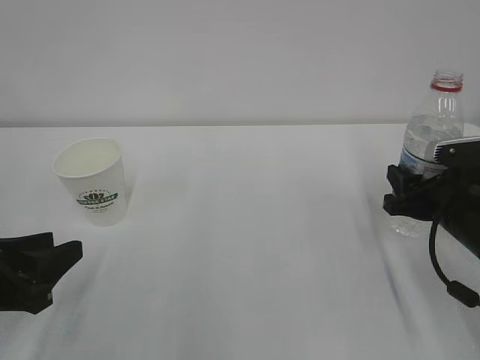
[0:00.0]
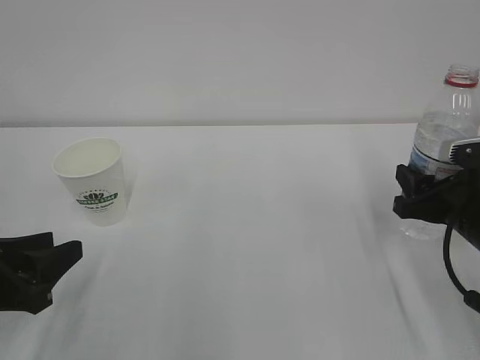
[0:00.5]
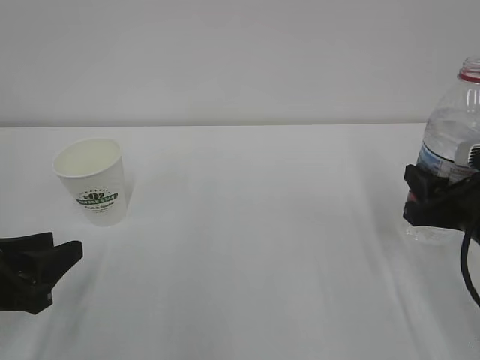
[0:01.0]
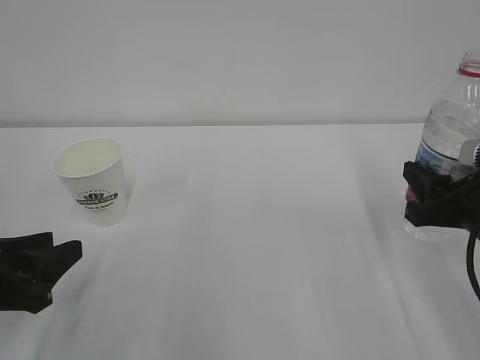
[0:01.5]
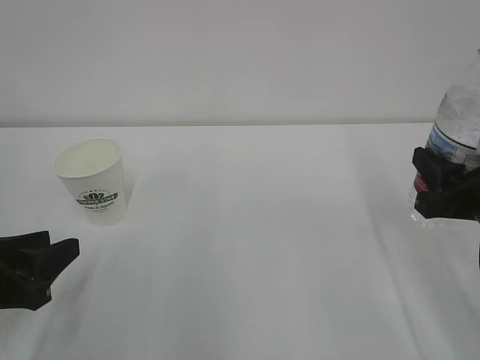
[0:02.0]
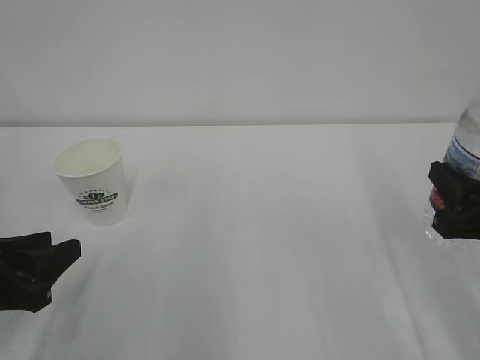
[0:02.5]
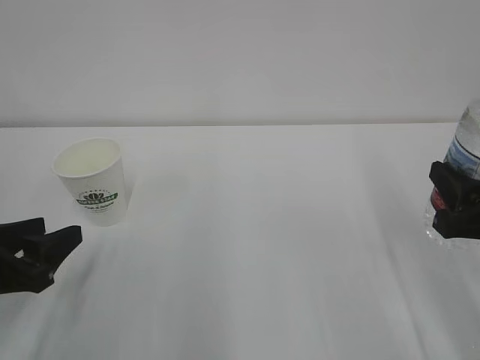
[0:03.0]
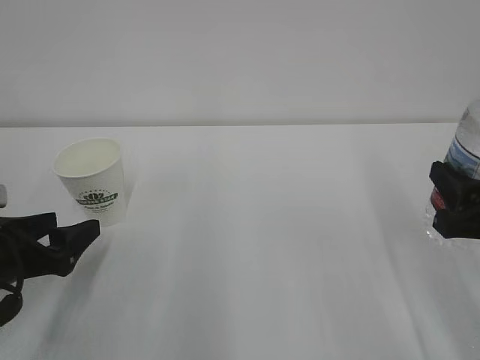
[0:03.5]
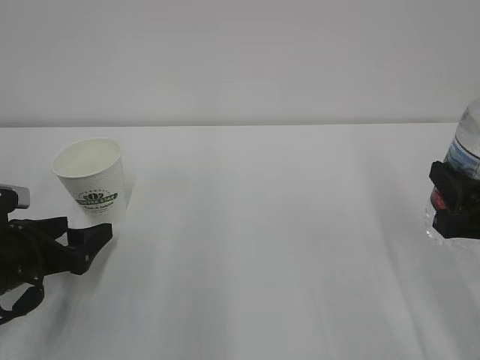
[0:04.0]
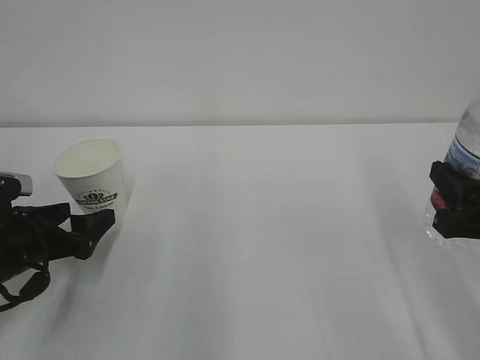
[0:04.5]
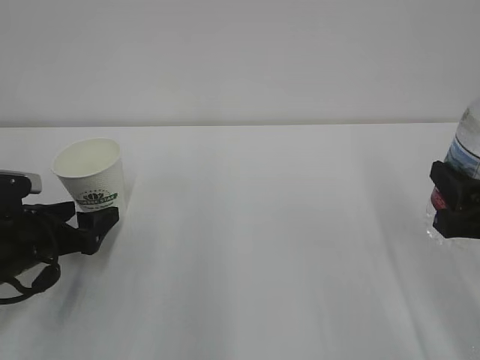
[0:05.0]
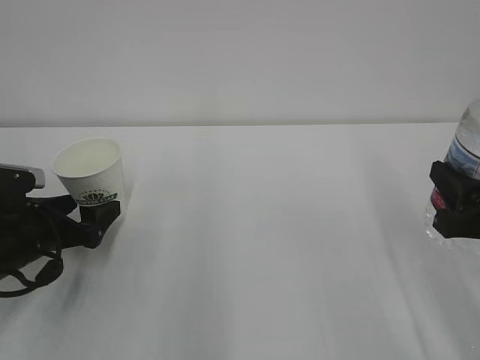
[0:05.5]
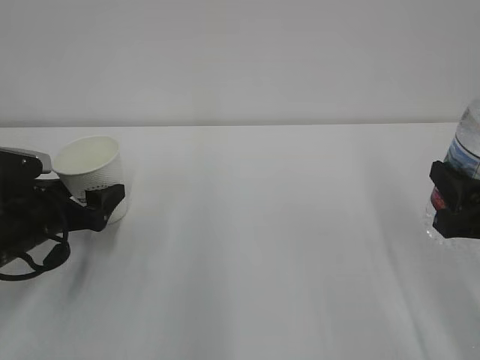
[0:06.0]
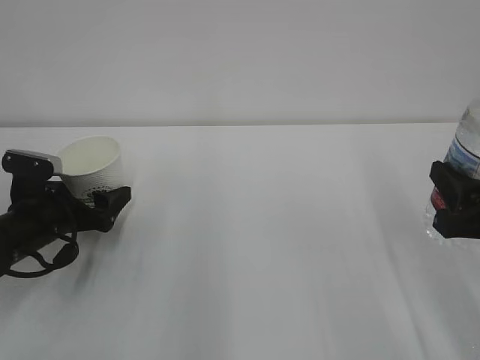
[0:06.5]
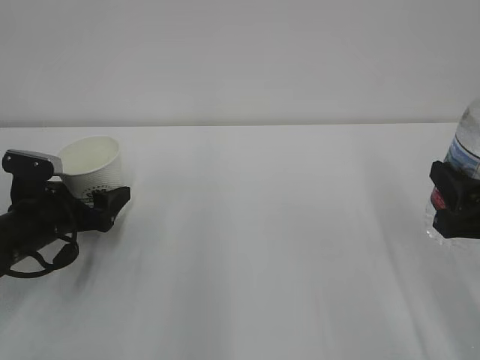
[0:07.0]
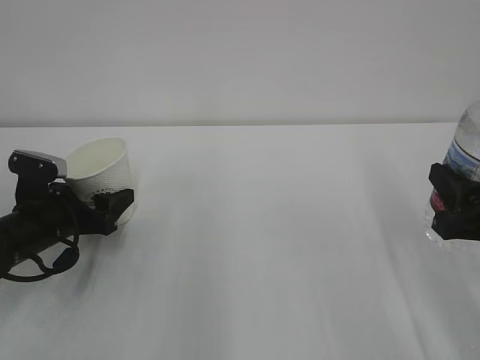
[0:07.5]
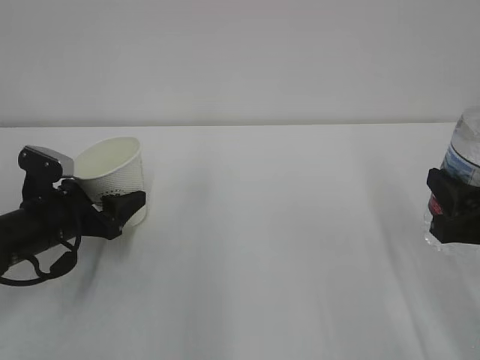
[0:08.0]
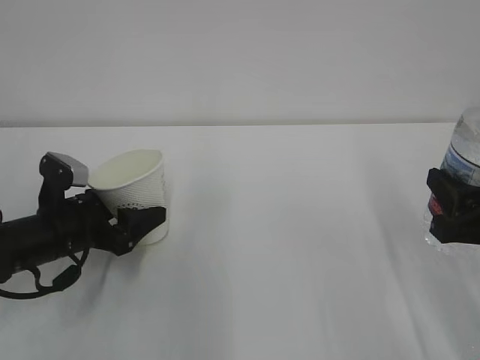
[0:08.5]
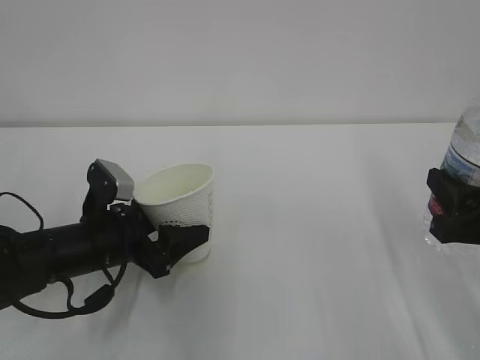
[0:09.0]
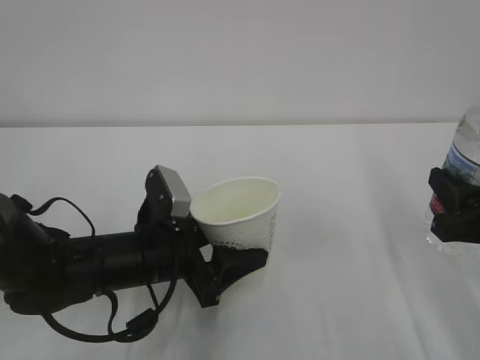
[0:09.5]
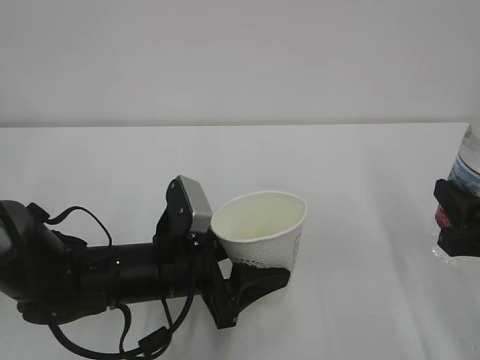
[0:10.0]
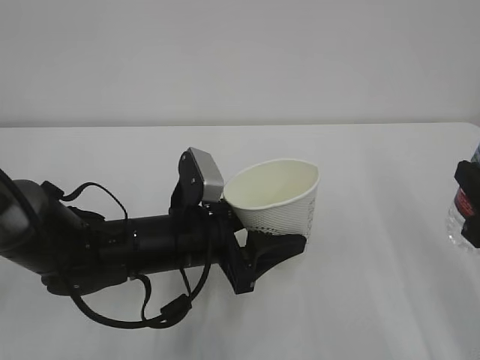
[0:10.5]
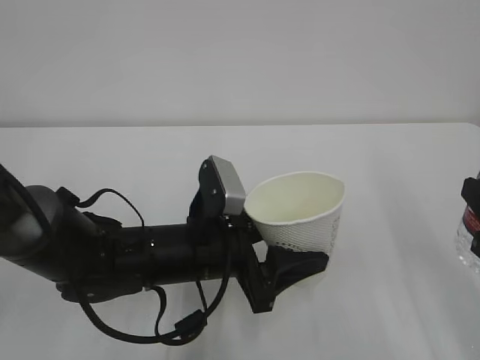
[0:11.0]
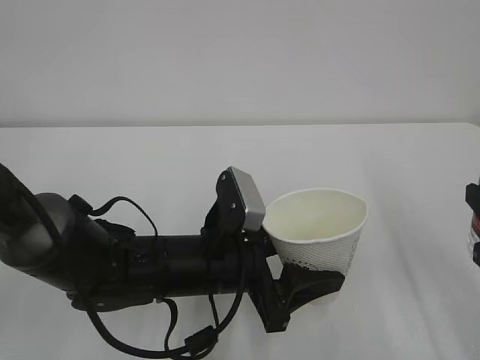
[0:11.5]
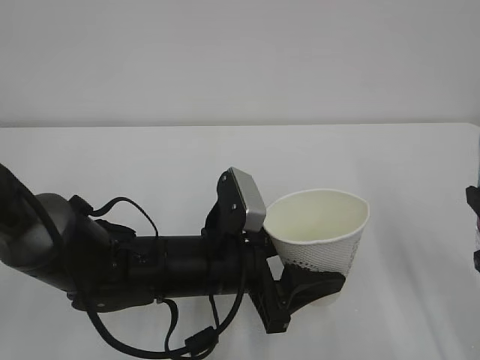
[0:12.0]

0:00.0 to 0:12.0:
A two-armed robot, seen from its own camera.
0:00.0 to 0:02.0: The right gripper moves upward and backward, roughly 10 cm.
0:02.0 to 0:04.0: The left gripper shifts about 5 cm forward, and opens its fingers.
0:04.0 to 0:06.0: The left gripper is displaced forward by some 5 cm.
0:06.0 to 0:08.0: The left gripper closes up.
0:08.0 to 0:10.0: The left gripper goes approximately 15 cm to the right and backward.
0:10.0 to 0:12.0: The left gripper moves to the right, roughly 5 cm.

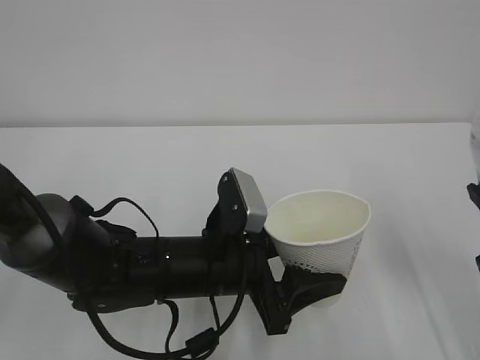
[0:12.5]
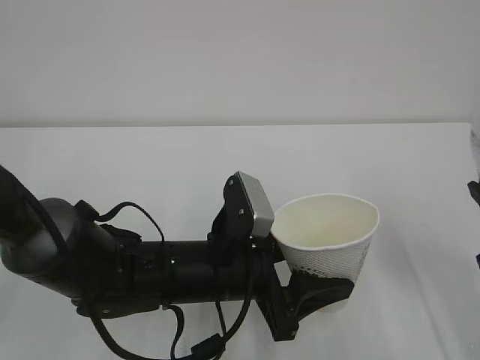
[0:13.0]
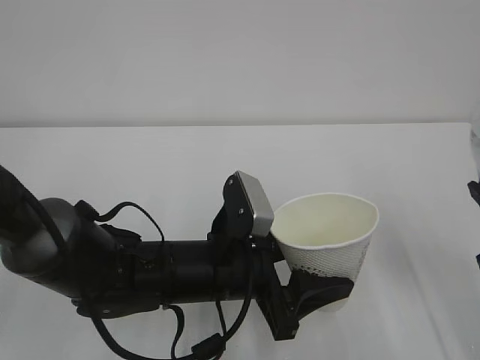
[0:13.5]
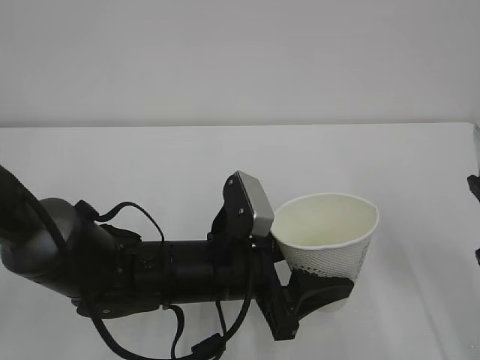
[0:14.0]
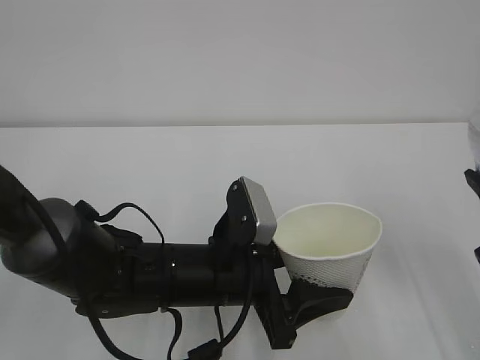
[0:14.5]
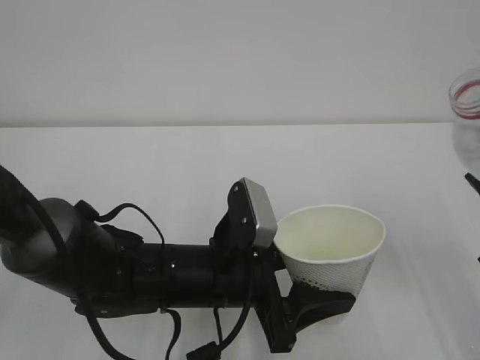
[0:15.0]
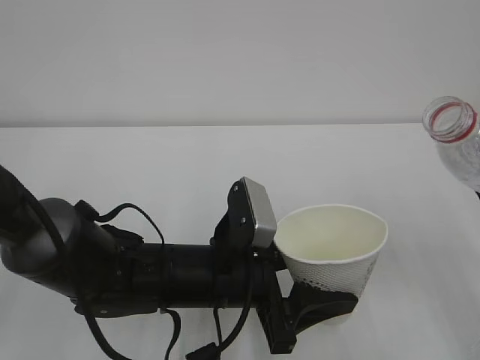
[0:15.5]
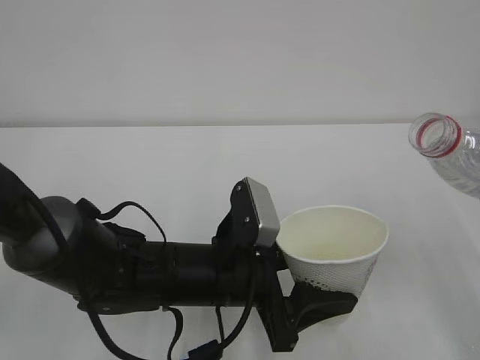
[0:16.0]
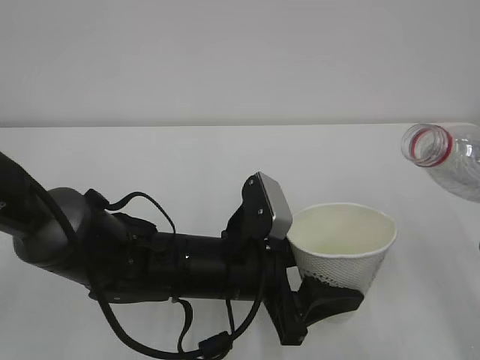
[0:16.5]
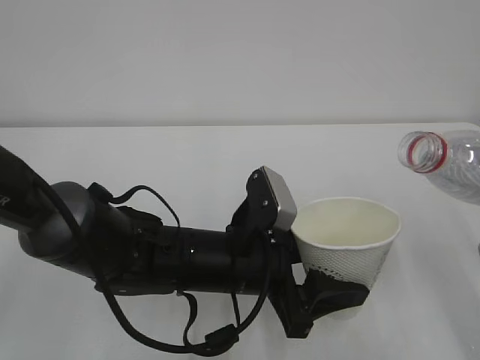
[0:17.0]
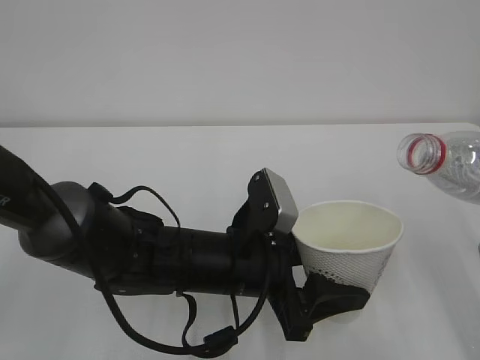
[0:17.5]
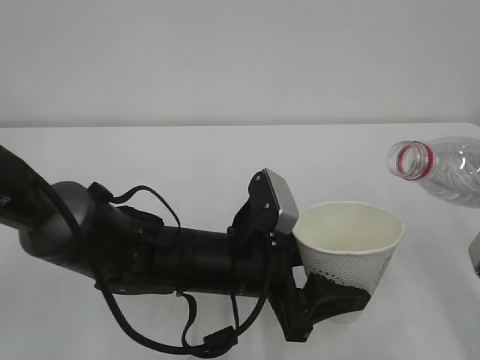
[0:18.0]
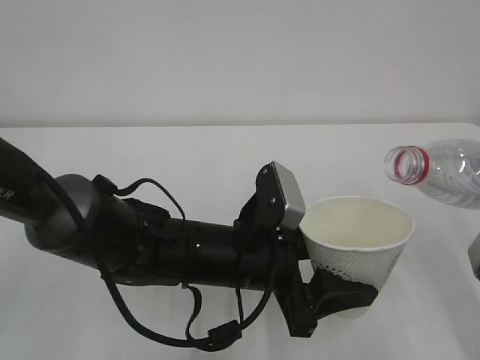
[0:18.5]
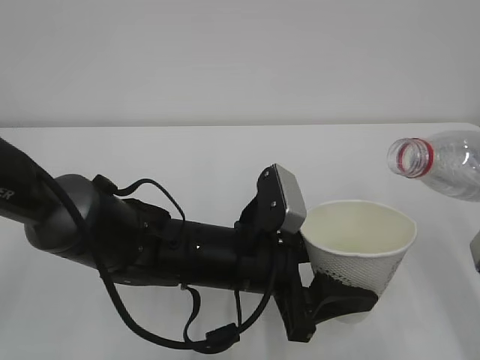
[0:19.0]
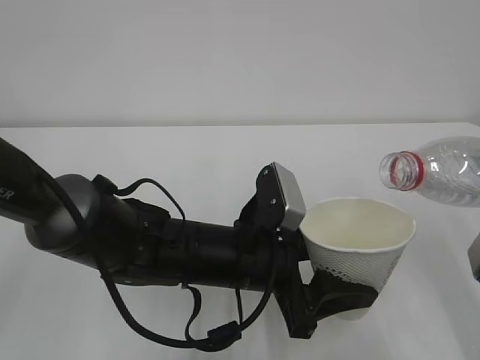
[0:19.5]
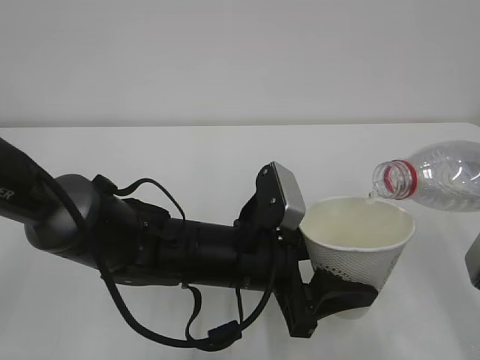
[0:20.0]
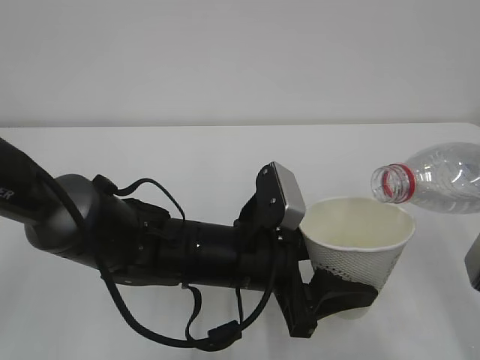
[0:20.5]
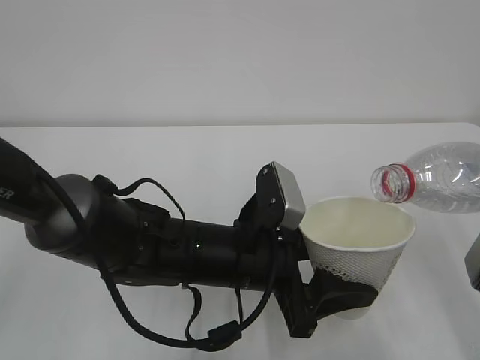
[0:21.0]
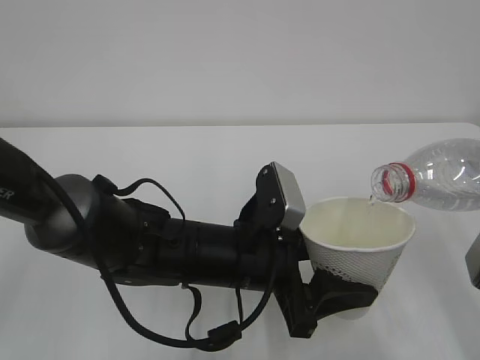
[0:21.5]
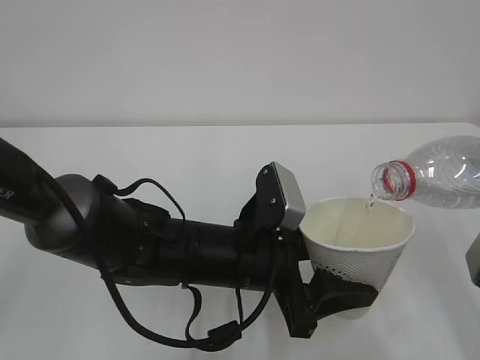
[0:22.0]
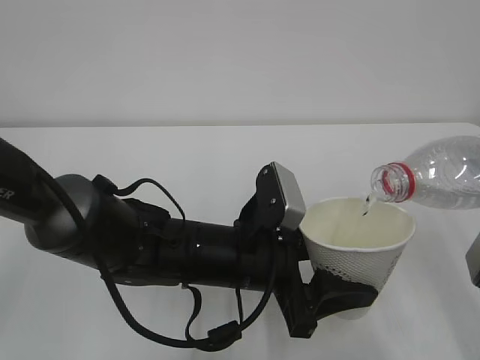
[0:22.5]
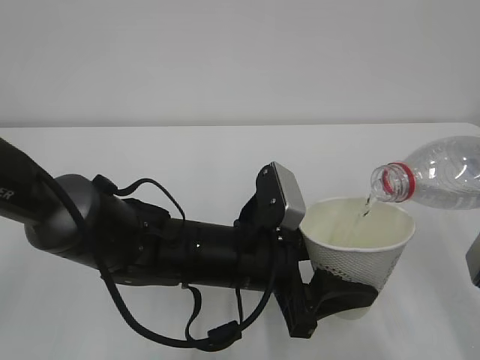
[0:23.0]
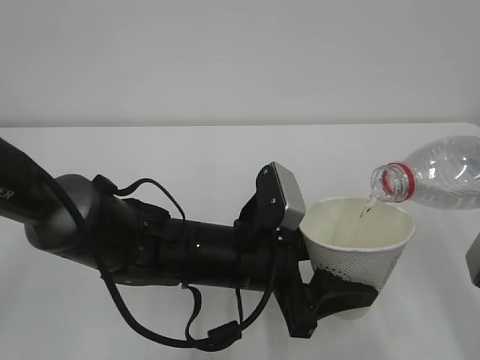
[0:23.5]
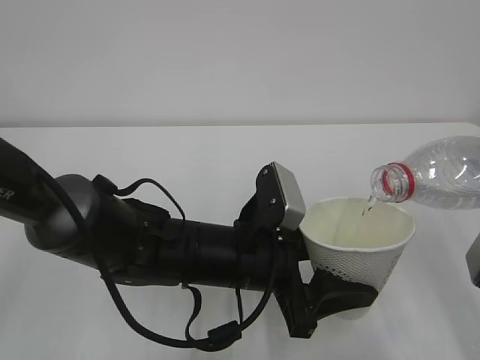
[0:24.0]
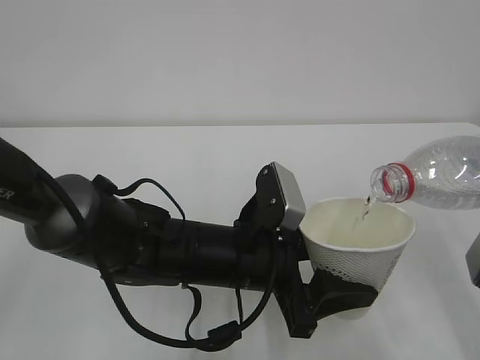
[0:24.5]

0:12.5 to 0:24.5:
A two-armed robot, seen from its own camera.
0:12.5 to 0:14.5: The grippers stay close to where they were, moving slightly.
0:16.5 to 0:20.5: The grippers make only small movements.
0:20.5 to 0:24.5: Both grippers stay put.

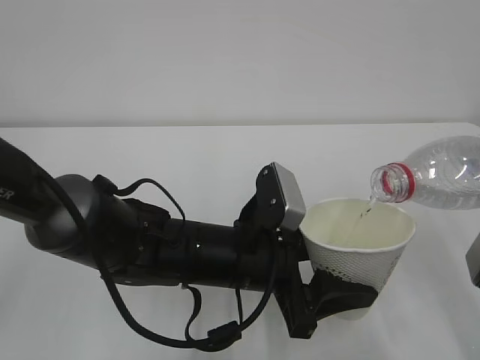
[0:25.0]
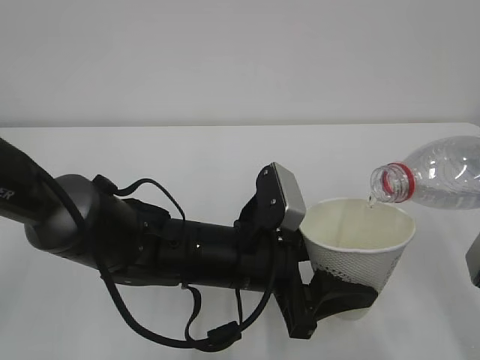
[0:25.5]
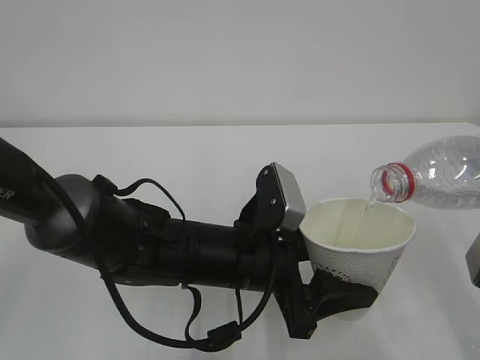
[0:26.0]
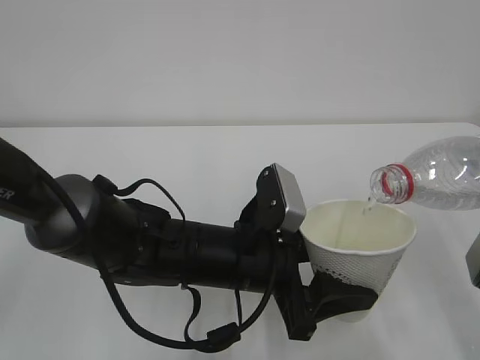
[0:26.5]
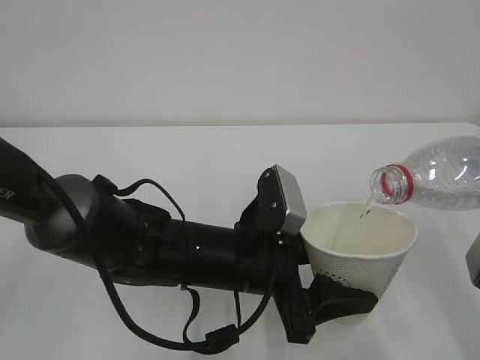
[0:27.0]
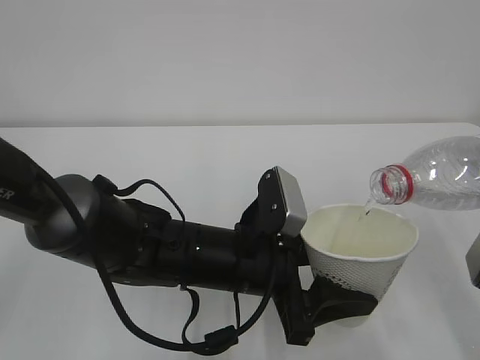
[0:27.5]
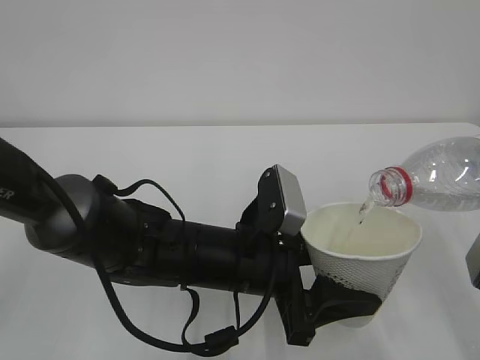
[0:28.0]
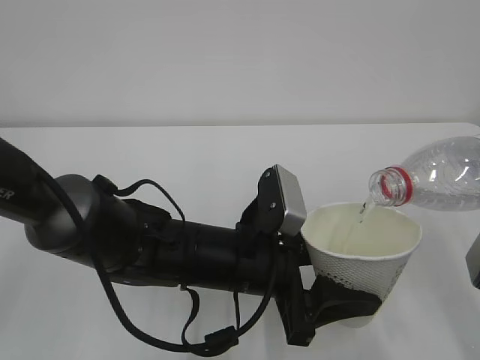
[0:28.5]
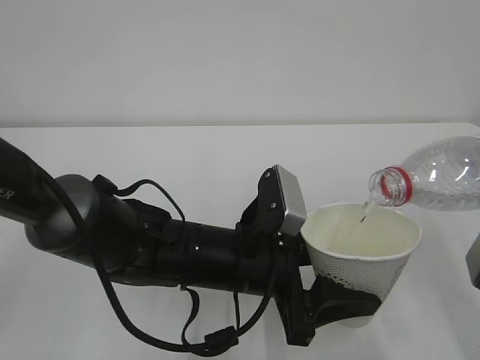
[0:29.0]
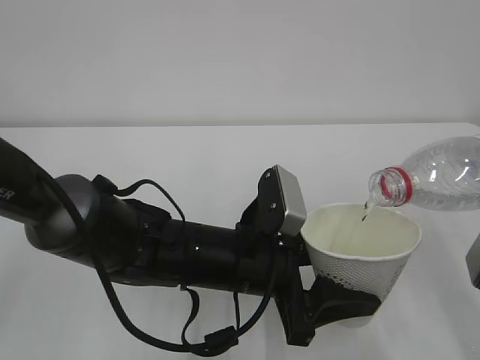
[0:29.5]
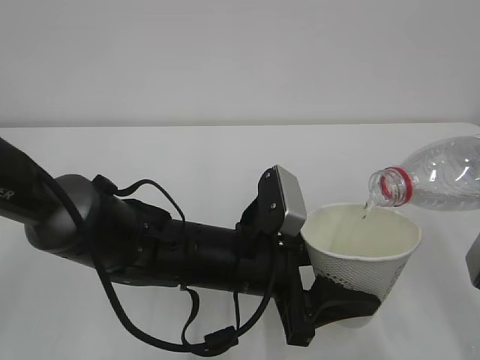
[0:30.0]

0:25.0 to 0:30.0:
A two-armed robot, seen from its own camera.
0:25.0 to 0:30.0: Both grippers stay put.
